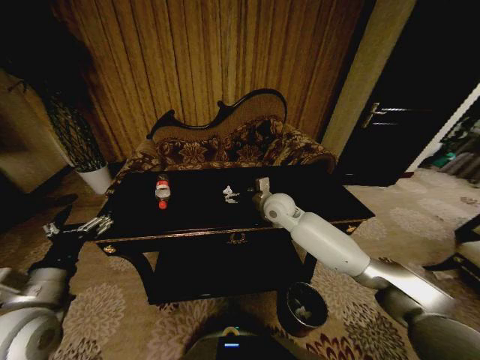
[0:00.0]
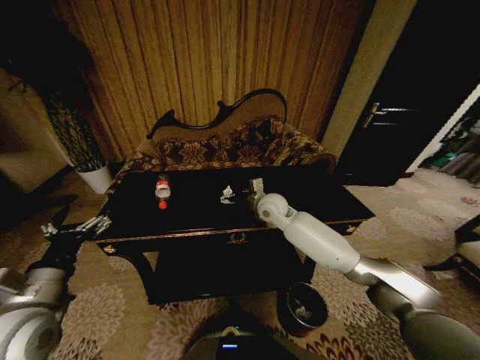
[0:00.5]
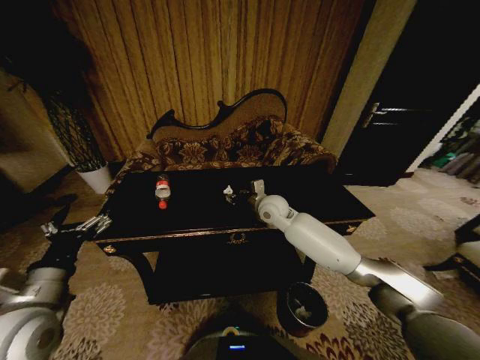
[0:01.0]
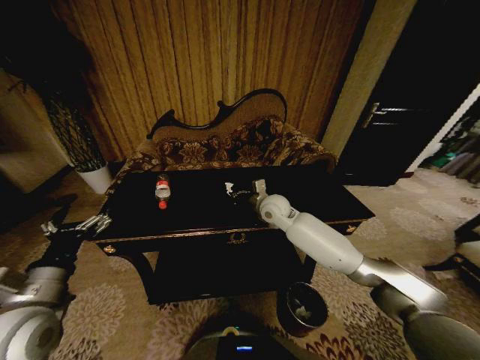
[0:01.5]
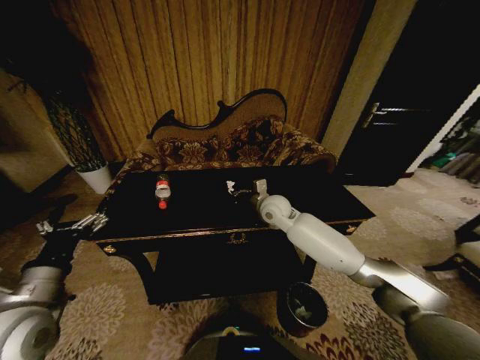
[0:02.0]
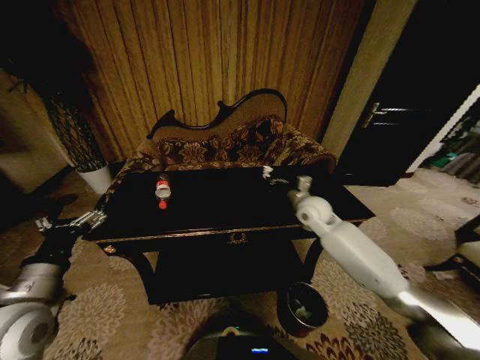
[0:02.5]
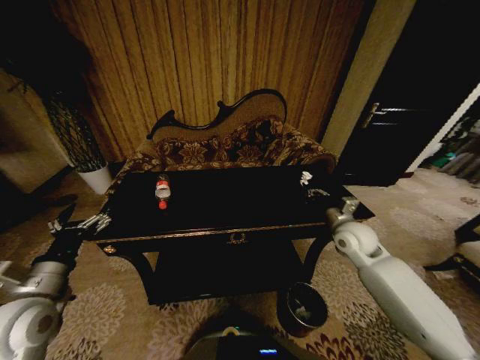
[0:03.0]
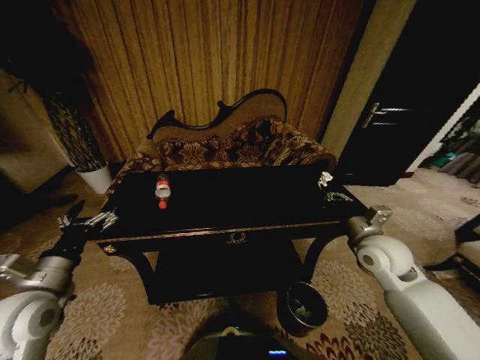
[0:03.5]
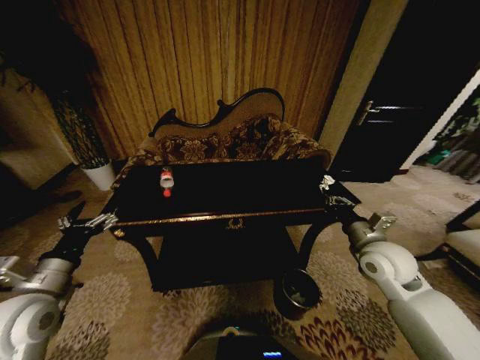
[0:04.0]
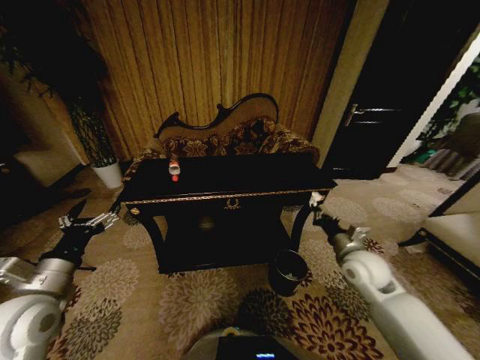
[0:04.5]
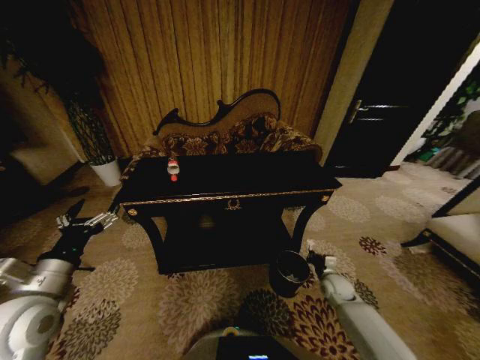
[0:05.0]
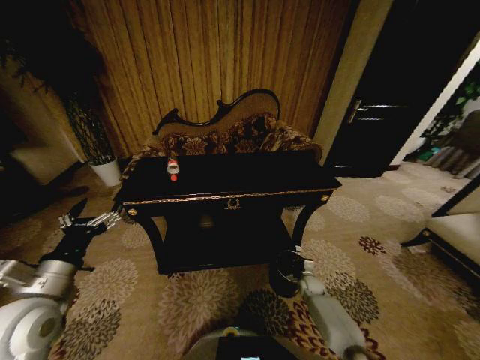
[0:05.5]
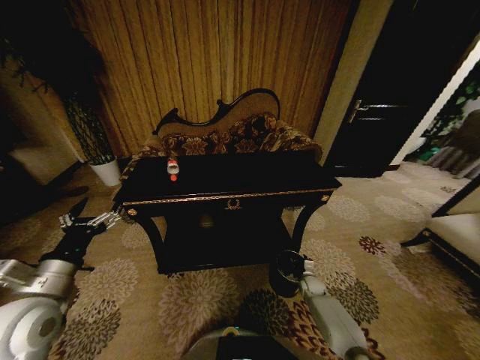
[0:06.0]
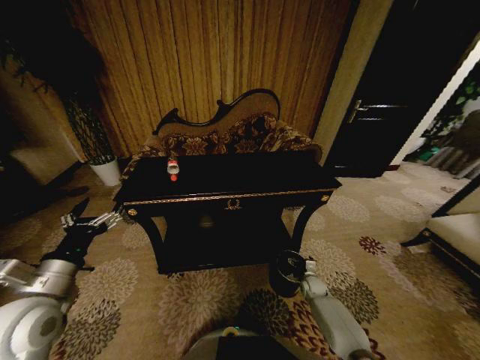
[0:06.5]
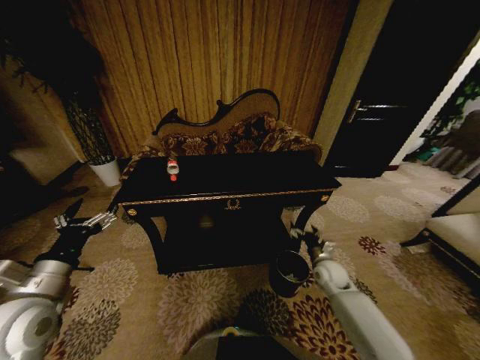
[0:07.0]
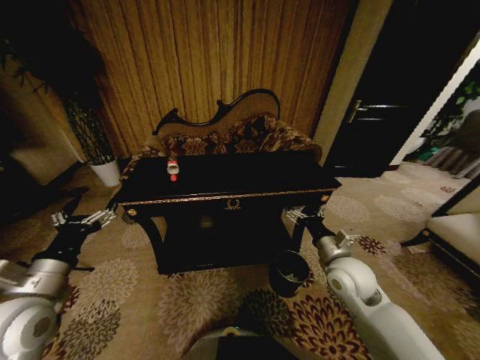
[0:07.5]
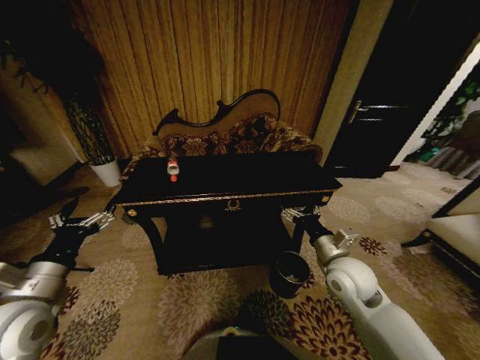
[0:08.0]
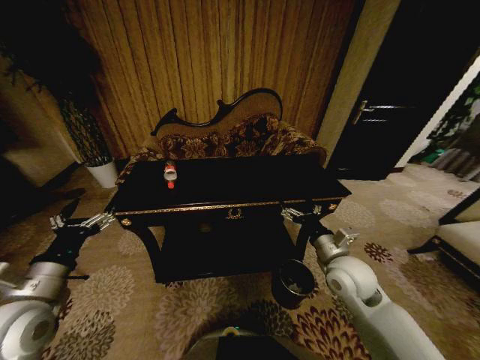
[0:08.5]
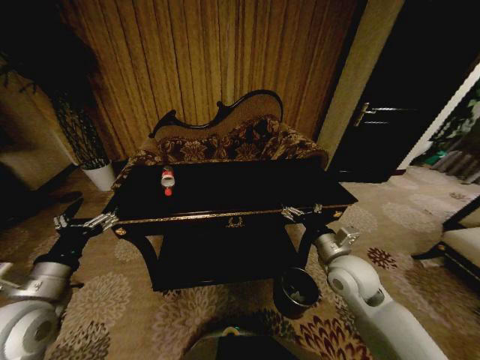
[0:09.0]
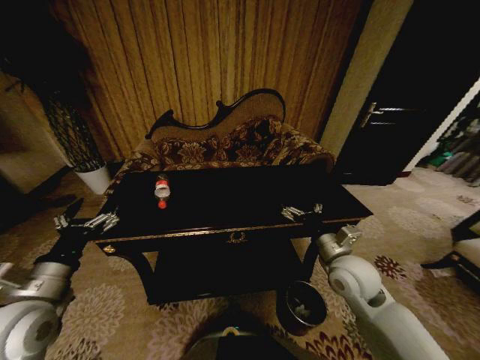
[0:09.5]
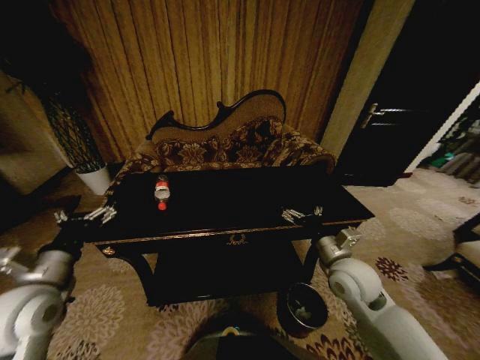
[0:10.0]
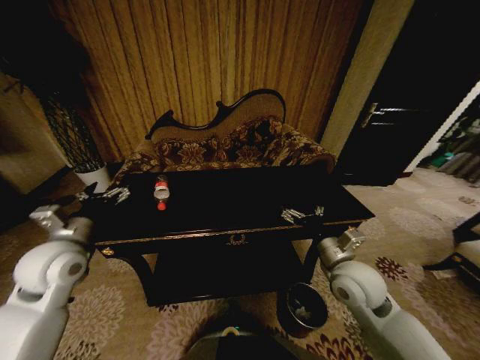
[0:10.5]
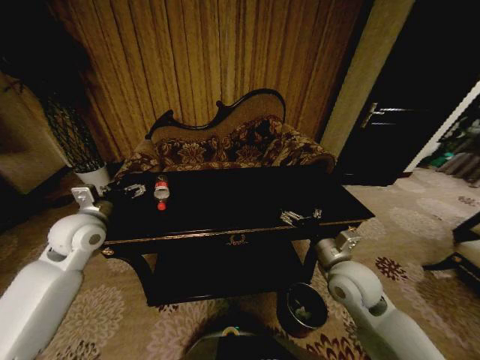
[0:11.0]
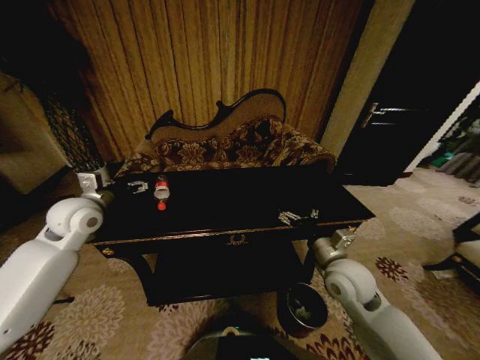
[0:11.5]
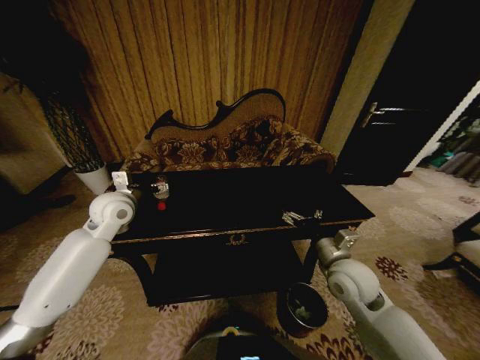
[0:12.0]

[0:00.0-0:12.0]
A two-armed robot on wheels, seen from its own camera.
Task of the whole recording: Move to the front of the table and place the trash on the table into the trash bin.
0:00.0 to 0:02.0: The right gripper closes its fingers.
0:02.0 to 0:04.0: The right gripper goes some 30 cm to the right and backward.
0:04.0 to 0:06.0: The right gripper moves downward, some 35 cm, and opens up.
0:06.0 to 0:08.0: The right gripper shifts about 35 cm upward, and opens up.
0:10.0 to 0:12.0: The left gripper travels forward by about 20 cm.

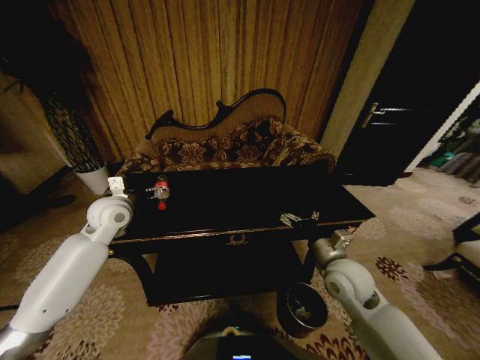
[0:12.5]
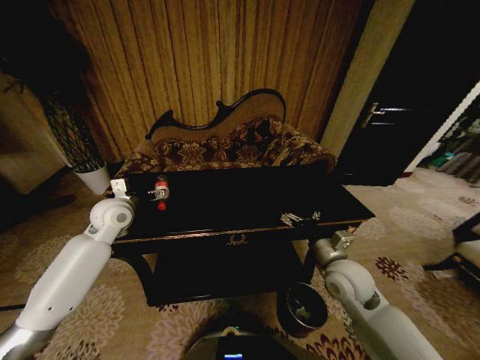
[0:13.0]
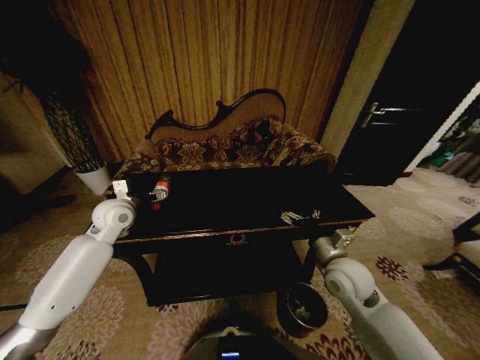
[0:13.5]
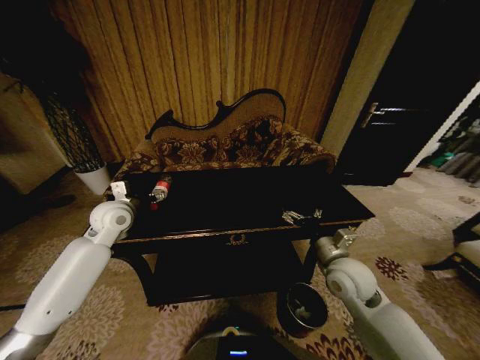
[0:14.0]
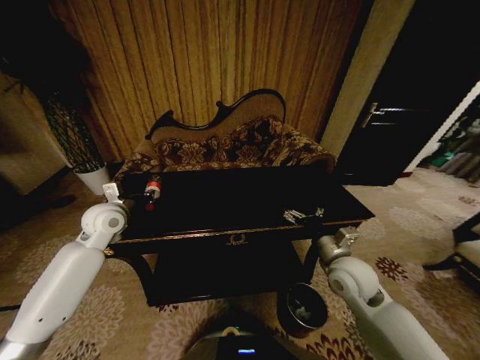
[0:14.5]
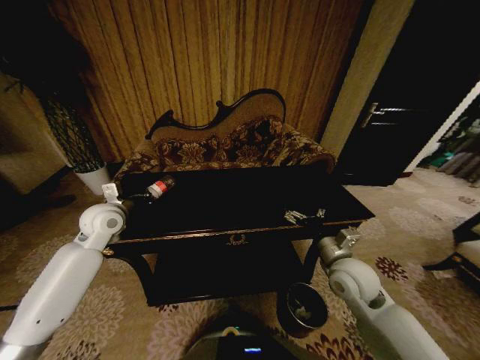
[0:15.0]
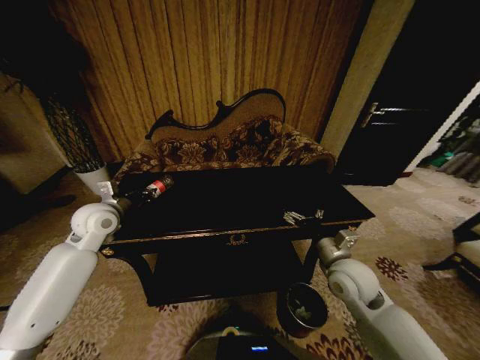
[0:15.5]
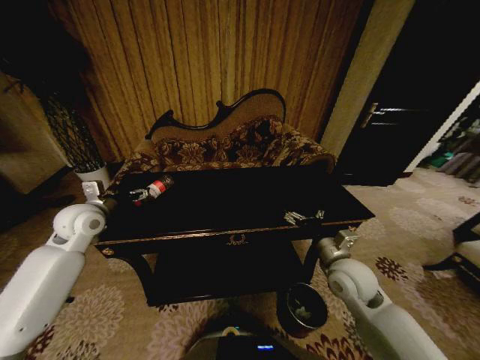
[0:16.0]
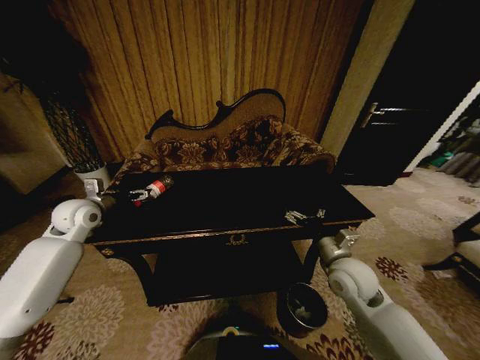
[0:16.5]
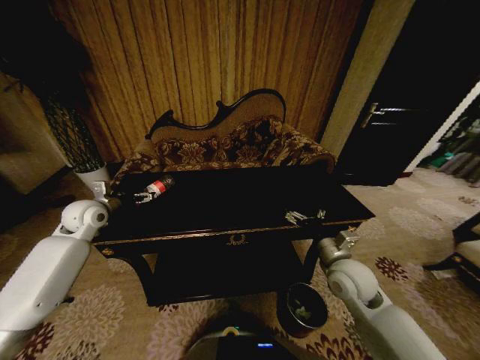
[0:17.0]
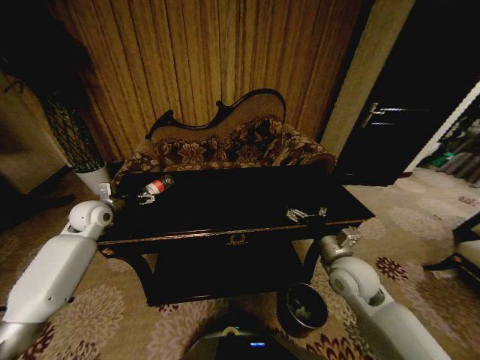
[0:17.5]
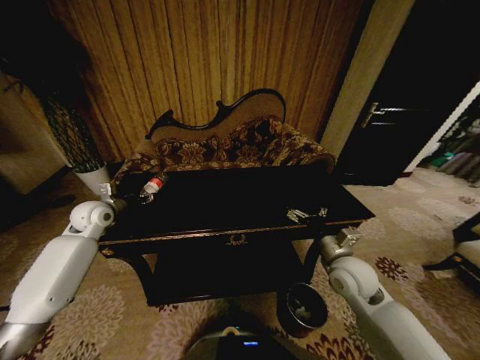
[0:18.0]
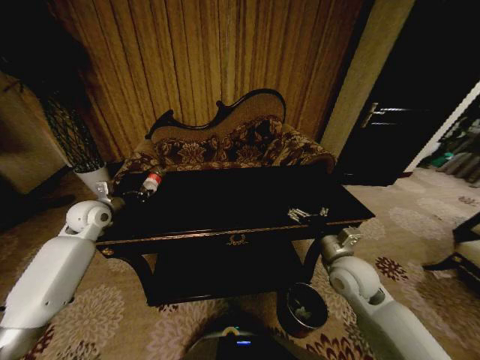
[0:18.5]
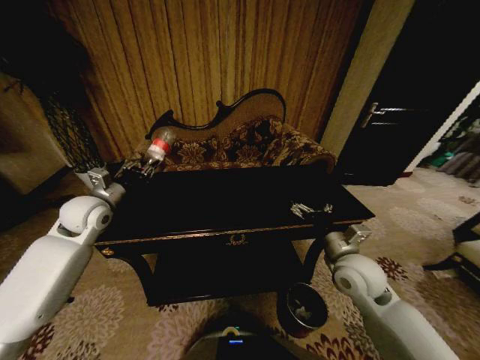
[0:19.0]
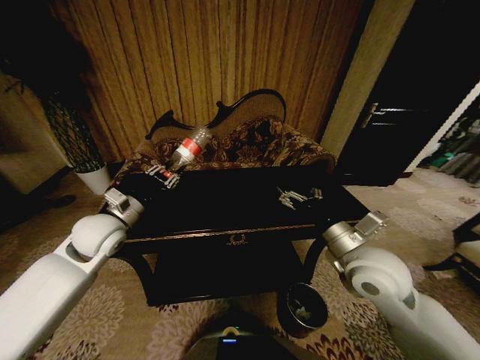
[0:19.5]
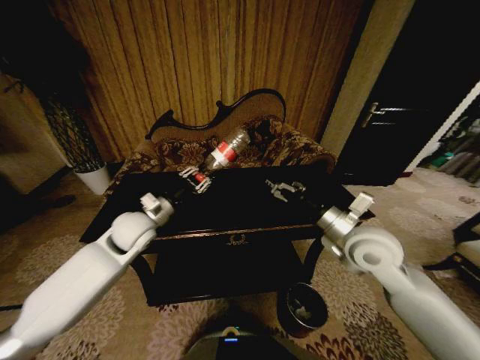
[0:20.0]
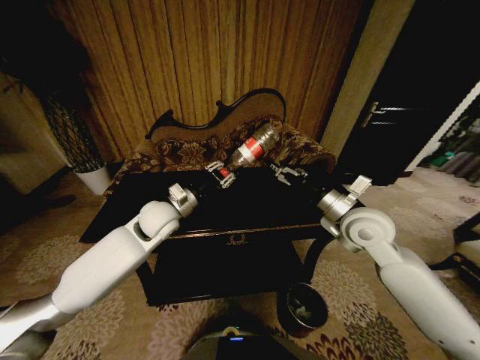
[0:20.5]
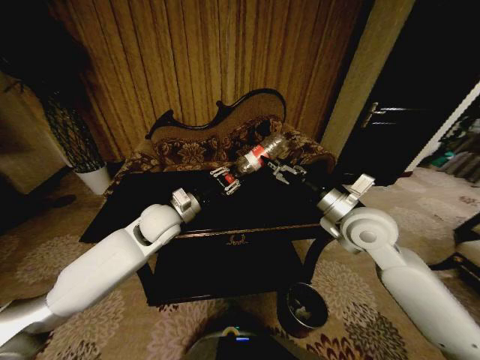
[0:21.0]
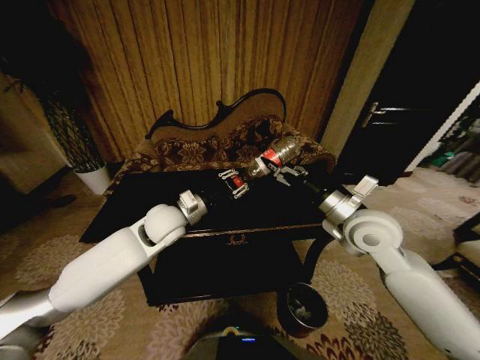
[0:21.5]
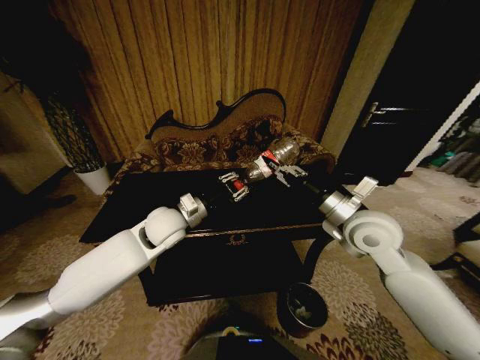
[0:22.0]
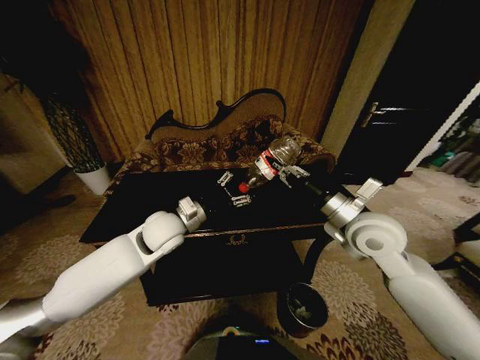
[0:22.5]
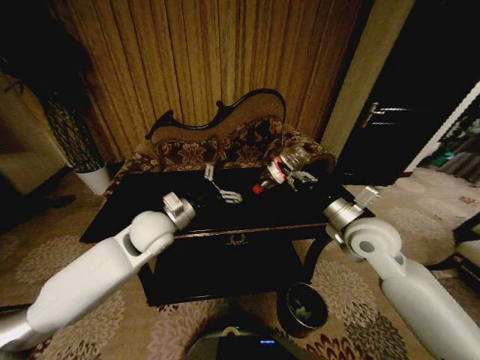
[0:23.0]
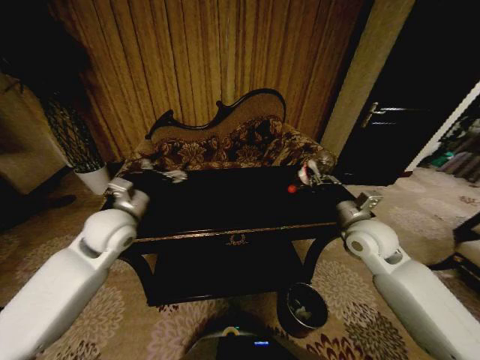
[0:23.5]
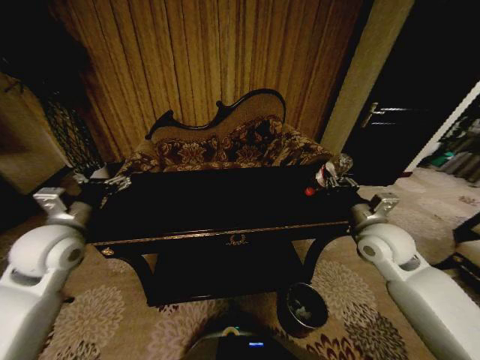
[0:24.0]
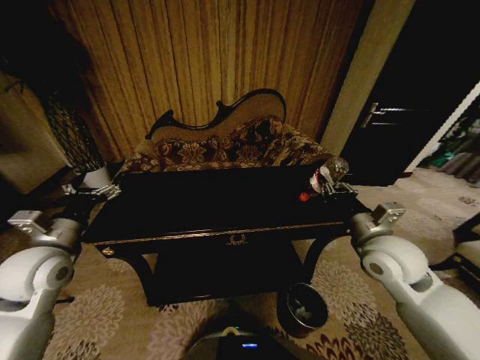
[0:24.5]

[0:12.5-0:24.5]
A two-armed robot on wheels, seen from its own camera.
Task of the whole recording: Move to the front of the table and place the trash on the table into the trash bin.
0:12.5 to 0:14.5: The left gripper closes.
0:14.5 to 0:16.5: The left gripper goes roughly 10 cm to the left, and opens.
0:16.5 to 0:18.5: The left gripper closes.
0:18.5 to 0:20.5: The left gripper is displaced to the right by some 20 cm. The right gripper travels upward and forward by approximately 15 cm.
0:20.5 to 0:22.5: The left gripper opens, while the right gripper closes its fingers.
0:22.5 to 0:24.5: The left gripper shifts roughly 25 cm to the left and backward, and opens its fingers. Meanwhile the right gripper moves some 5 cm.

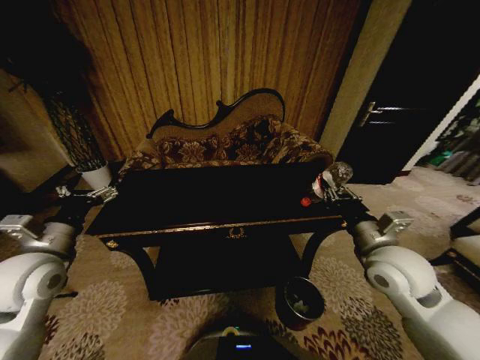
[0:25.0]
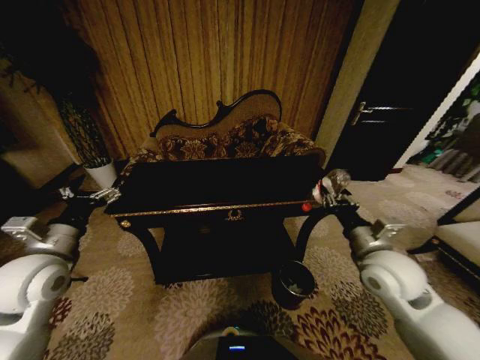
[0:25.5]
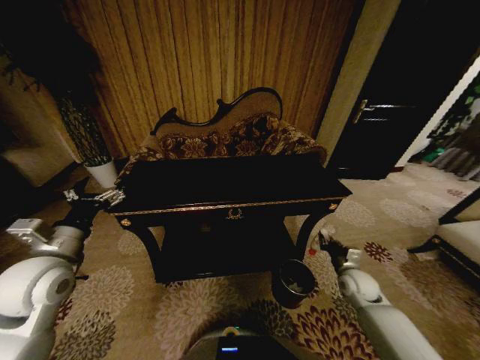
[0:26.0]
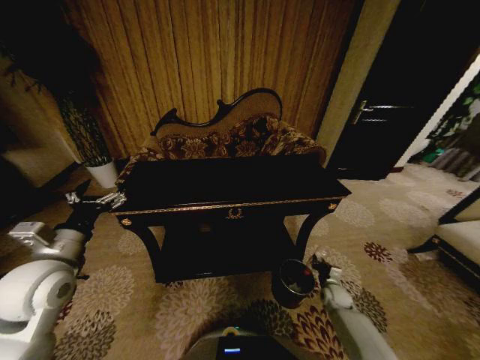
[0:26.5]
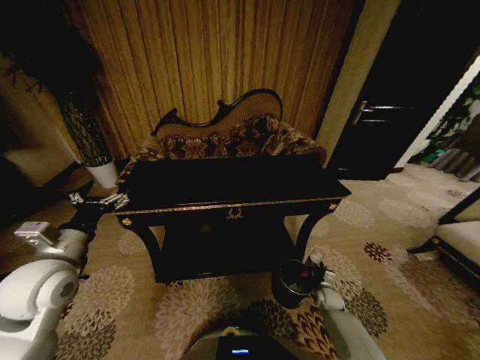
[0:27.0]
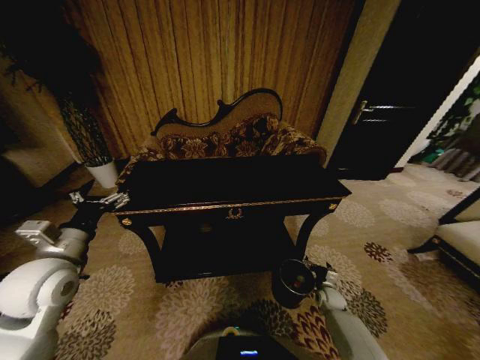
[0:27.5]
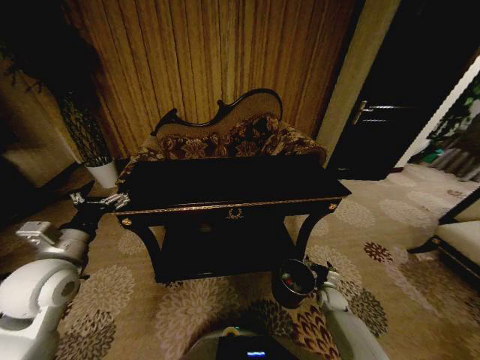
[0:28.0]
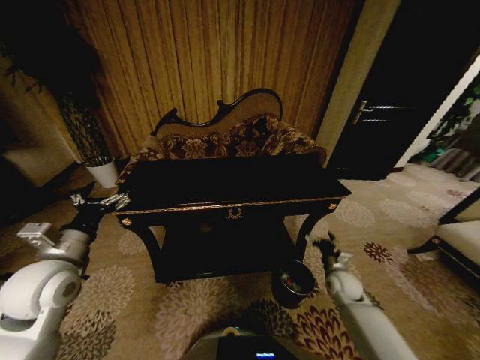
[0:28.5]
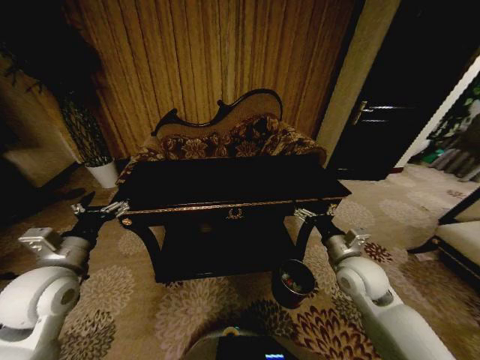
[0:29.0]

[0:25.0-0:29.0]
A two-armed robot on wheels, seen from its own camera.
Task of the whole recording: Move to the front of the table and place the trash on the table into the trash bin.
0:25.0 to 0:27.0: The right gripper shifts roughly 40 cm downward.
0:27.0 to 0:29.0: The right gripper is displaced upward by some 30 cm, and opens its fingers.
